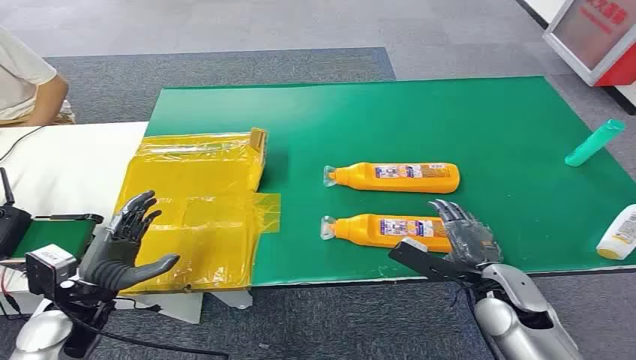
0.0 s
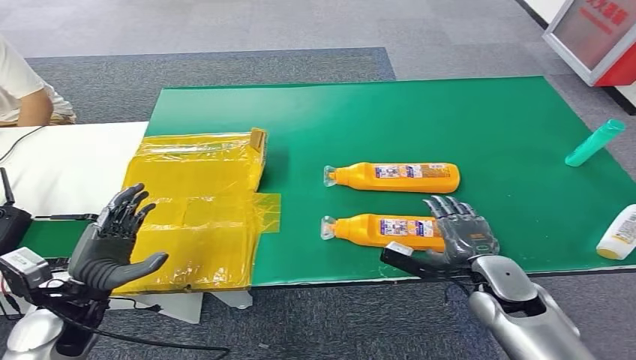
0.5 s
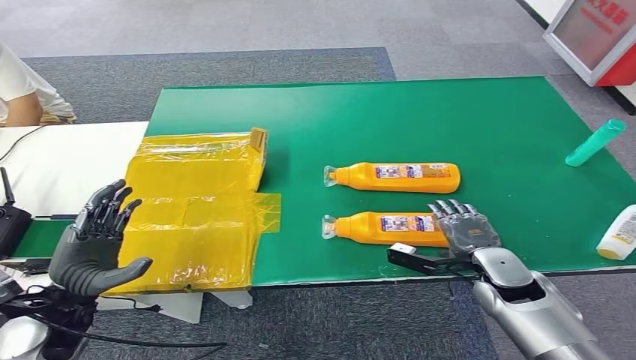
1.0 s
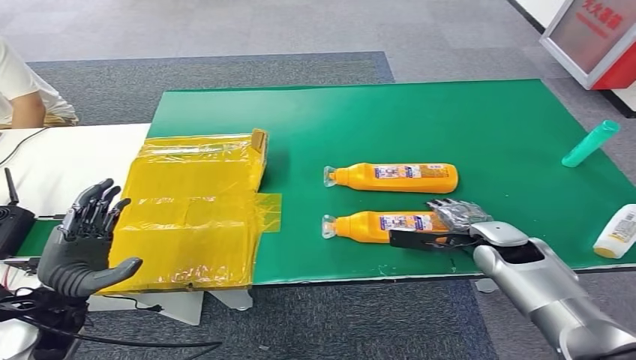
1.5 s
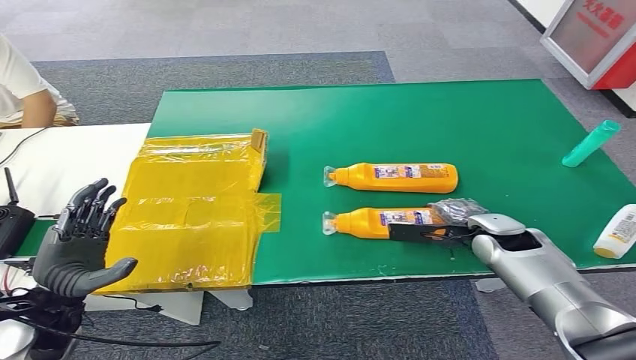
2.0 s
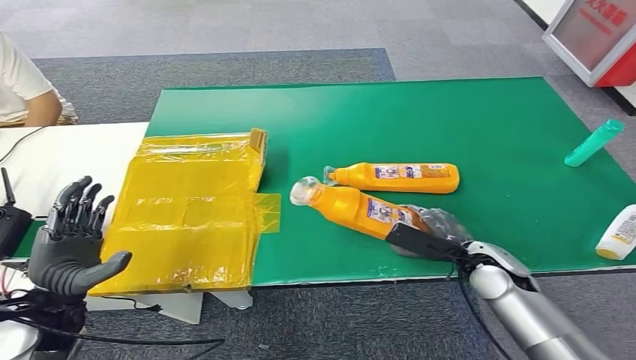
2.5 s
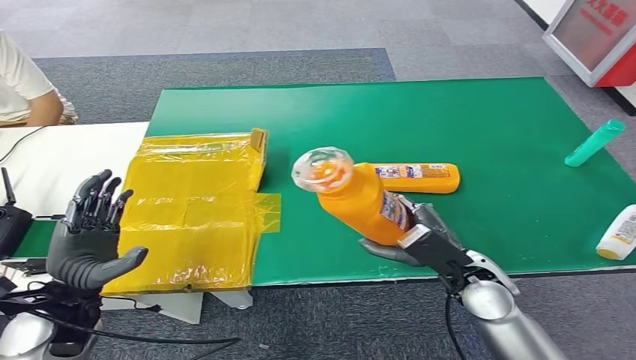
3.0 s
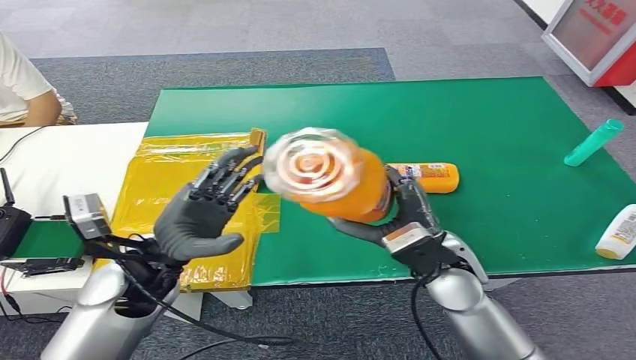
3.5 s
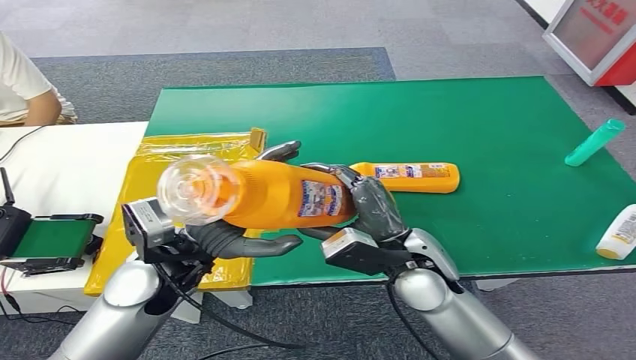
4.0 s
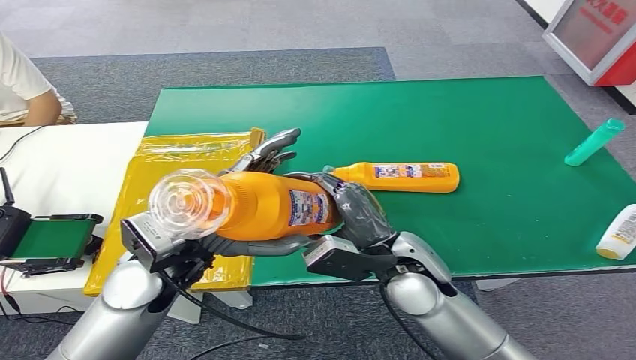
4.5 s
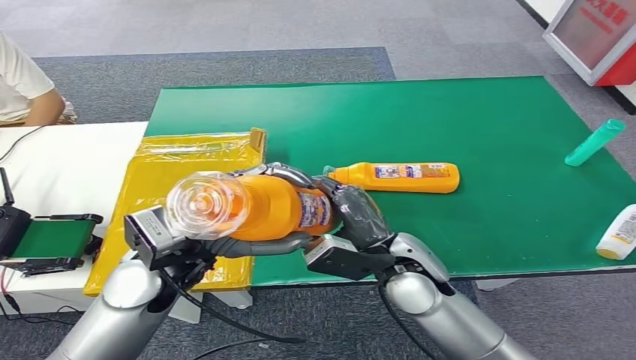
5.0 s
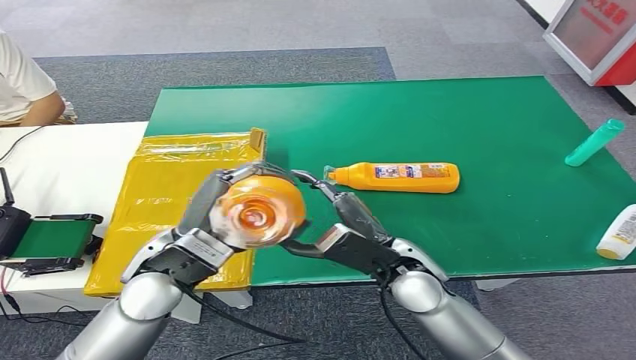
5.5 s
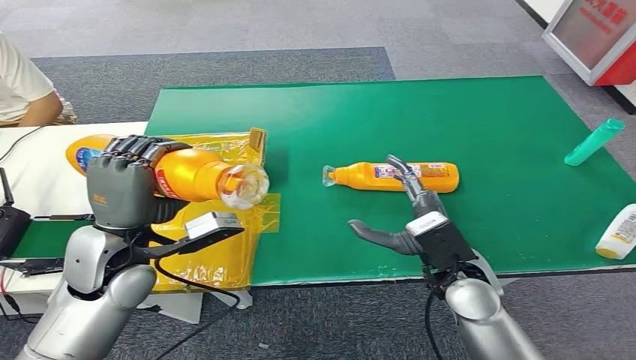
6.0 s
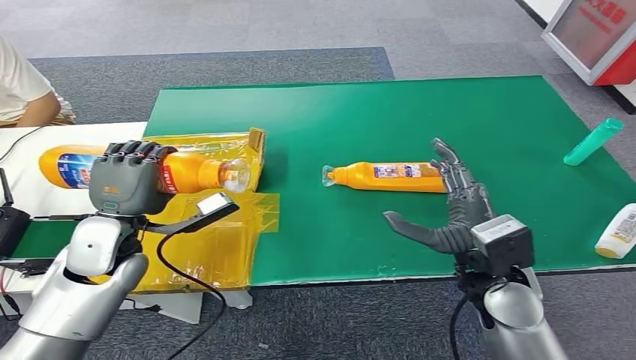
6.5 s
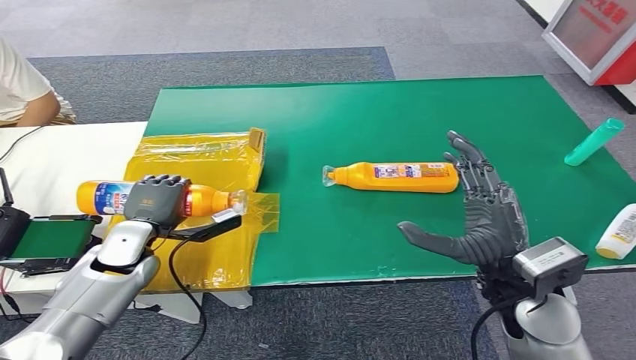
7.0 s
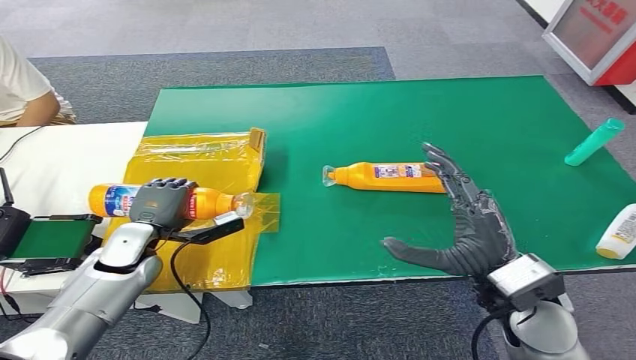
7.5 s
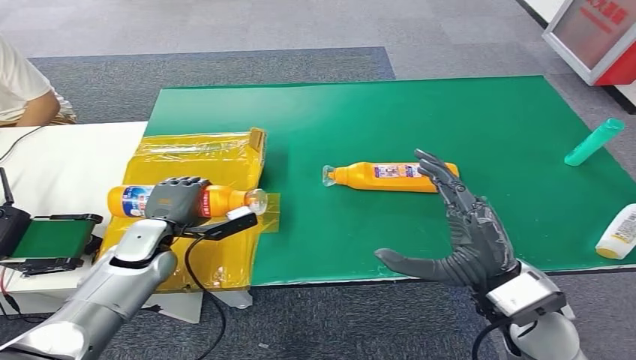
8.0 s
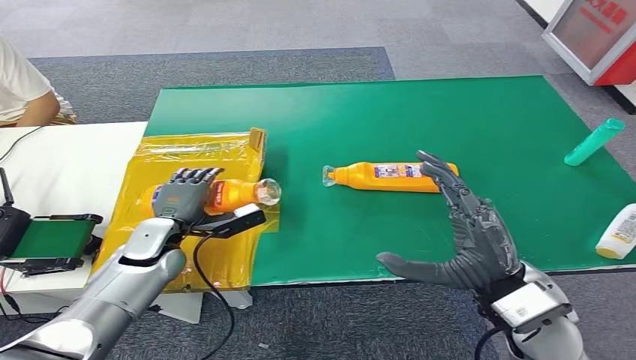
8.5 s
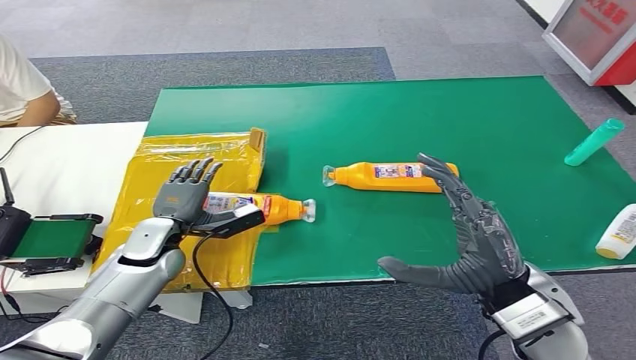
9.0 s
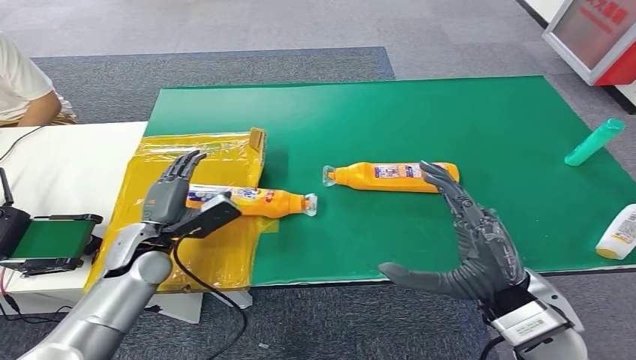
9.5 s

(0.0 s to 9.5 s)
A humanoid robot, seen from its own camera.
Step, 0.0 s - 3.0 s: Pick up the bottle from the table.
Step, 5.5 s - 9.5 s: Turn the bottle to the front side.

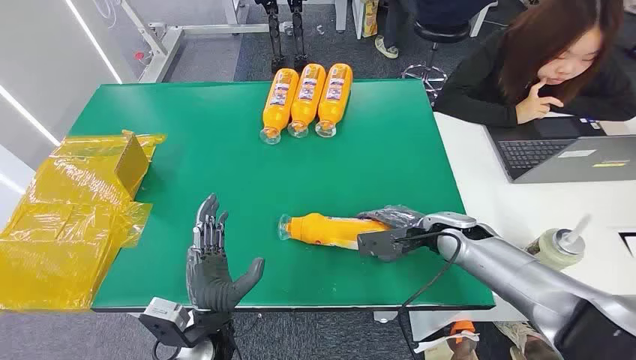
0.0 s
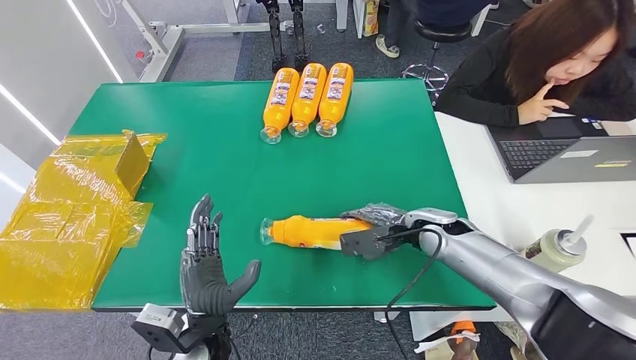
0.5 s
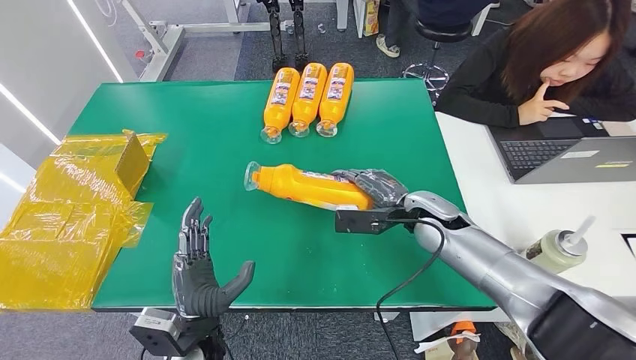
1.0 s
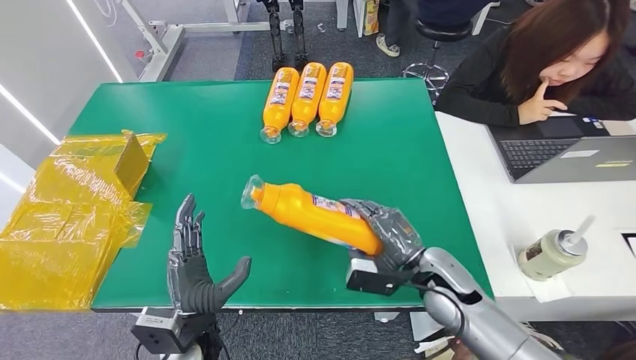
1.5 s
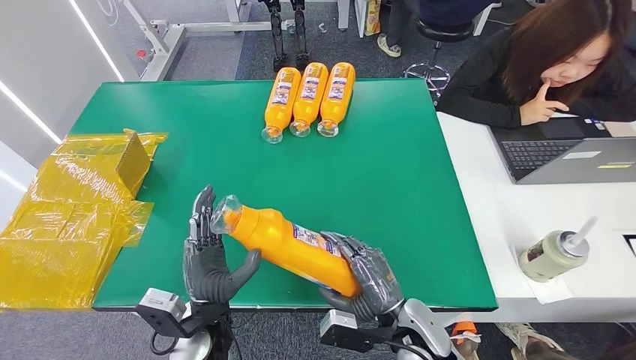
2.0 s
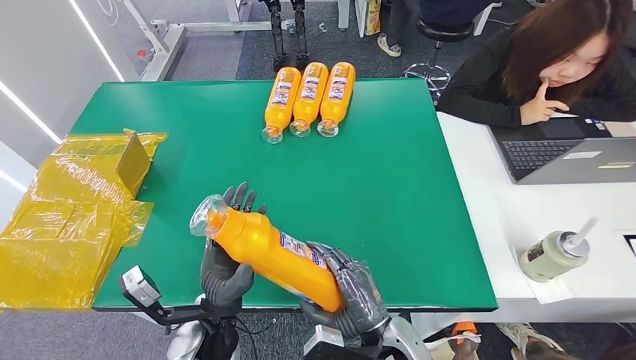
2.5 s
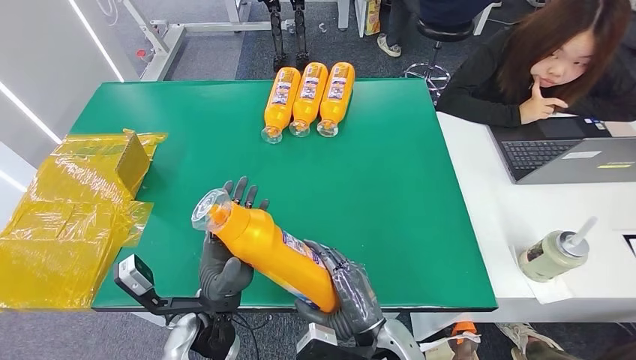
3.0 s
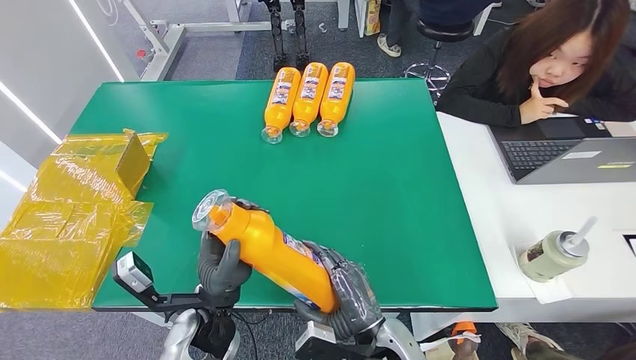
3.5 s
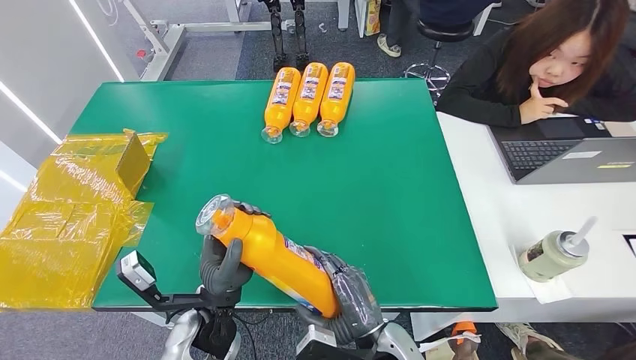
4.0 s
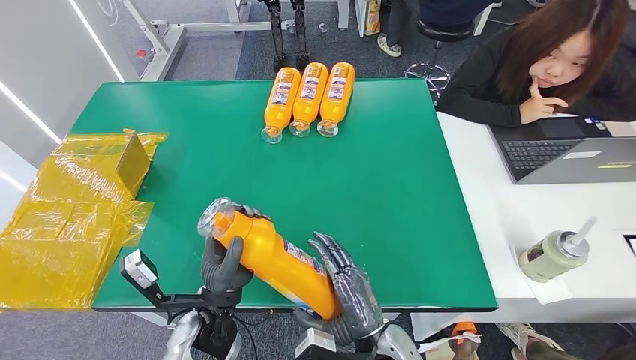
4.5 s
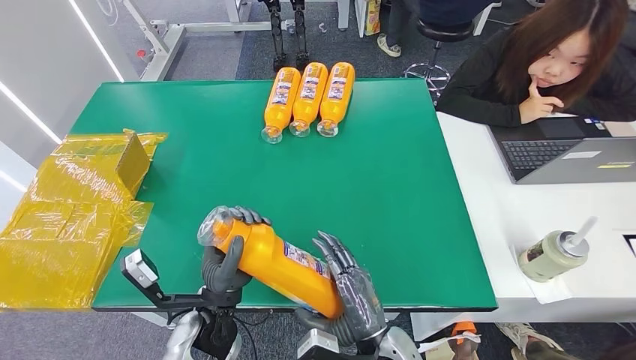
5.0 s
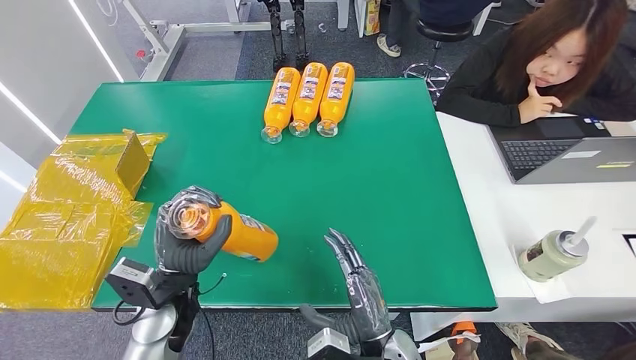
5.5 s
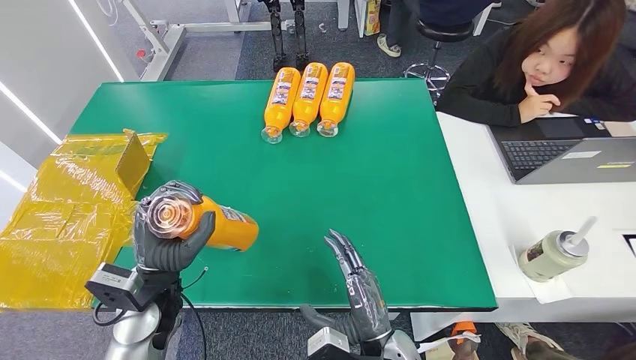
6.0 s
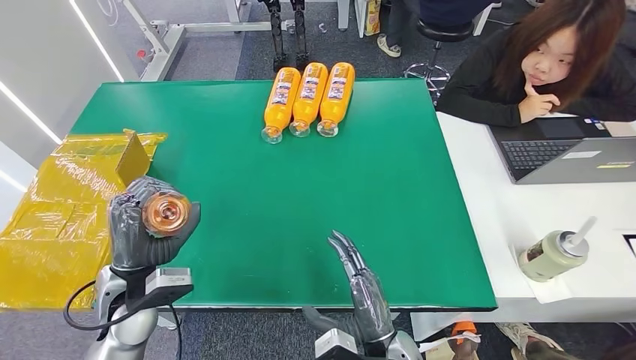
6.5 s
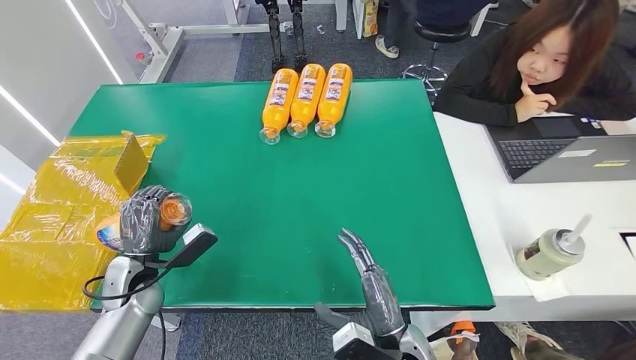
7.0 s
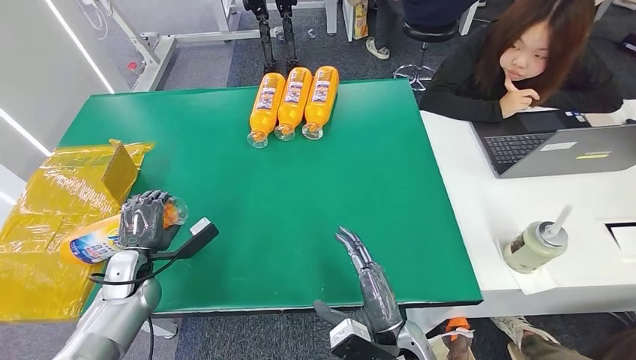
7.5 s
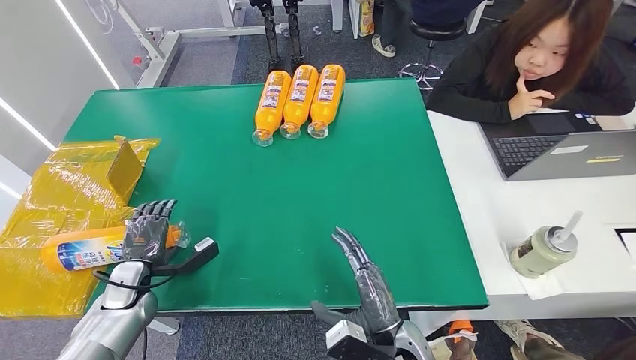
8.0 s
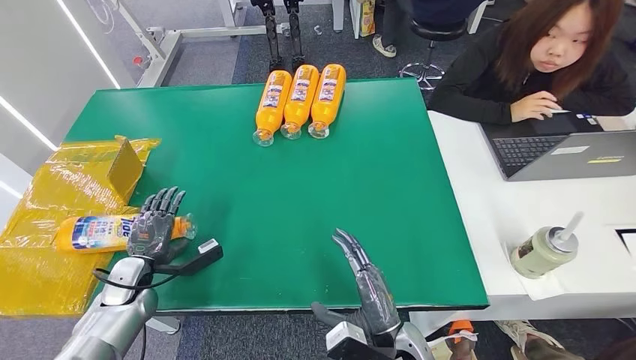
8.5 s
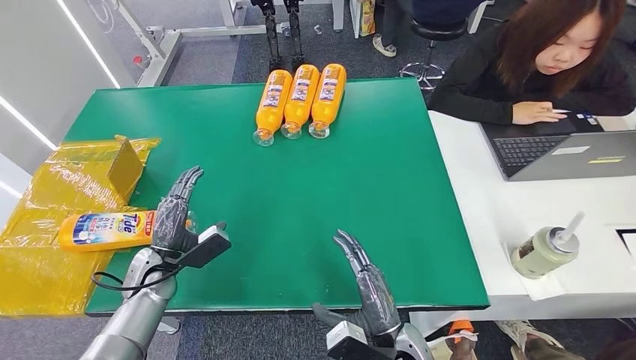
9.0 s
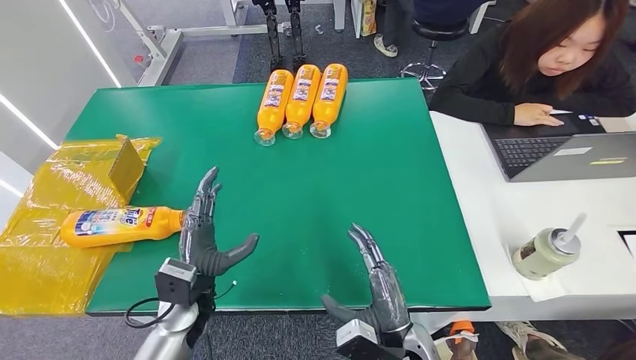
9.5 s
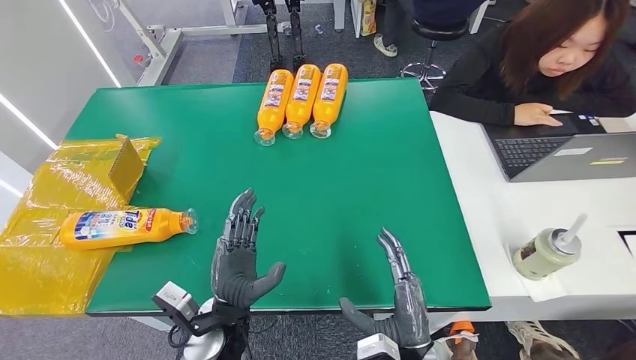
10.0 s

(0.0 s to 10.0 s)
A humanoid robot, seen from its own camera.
Step, 0.0 s - 3.0 s: Pick up the bottle from the table.
Step, 3.5 s - 10.0 s: Turn the bottle to the front side.
2.0 s - 4.0 s: The right hand ends up approximately 5 cm from where it was.
4.0 s - 6.0 s: The left hand is displaced to the left by roughly 10 cm.
